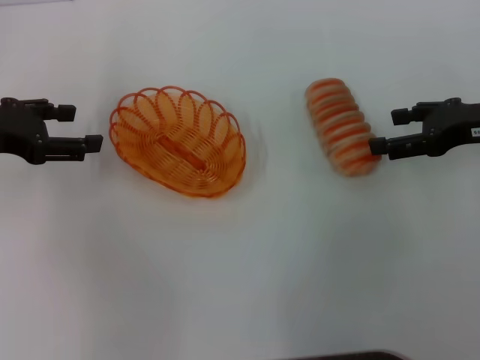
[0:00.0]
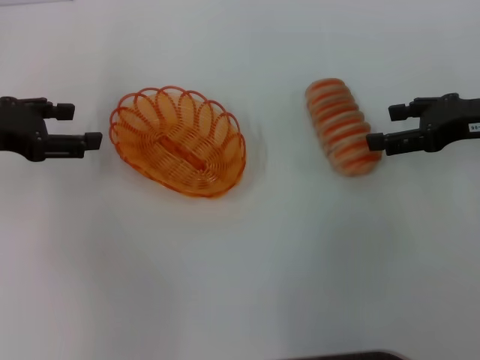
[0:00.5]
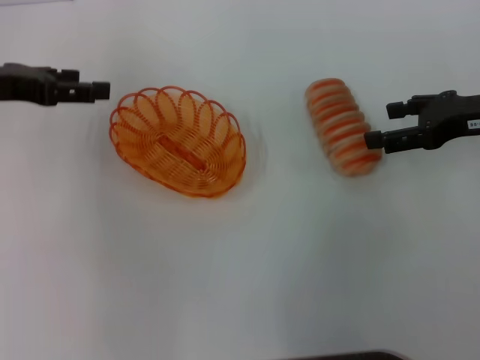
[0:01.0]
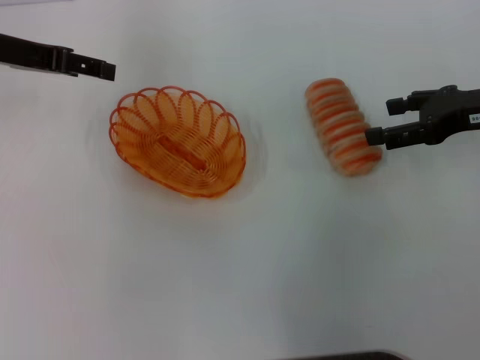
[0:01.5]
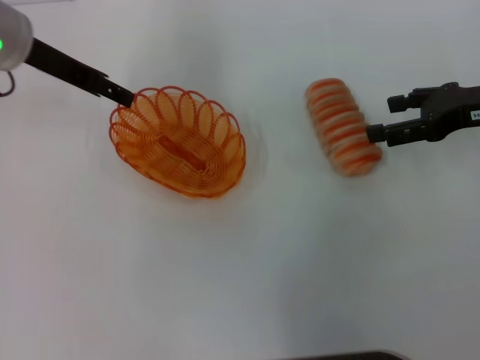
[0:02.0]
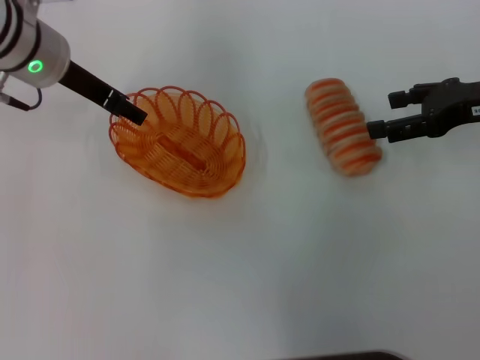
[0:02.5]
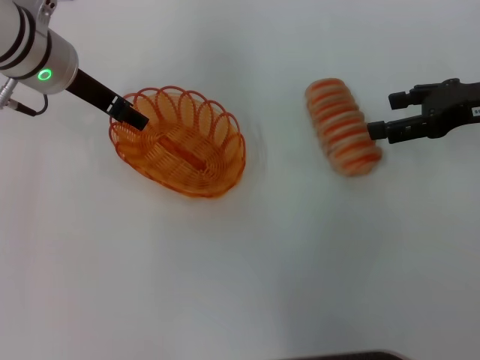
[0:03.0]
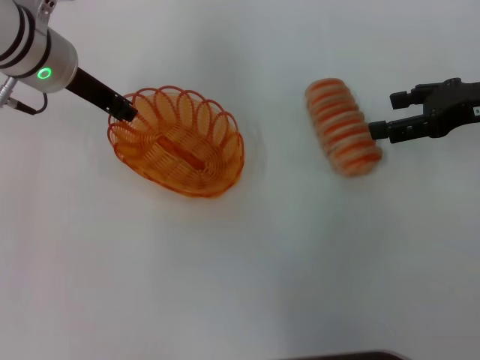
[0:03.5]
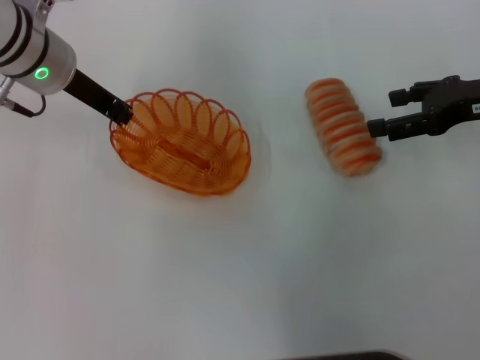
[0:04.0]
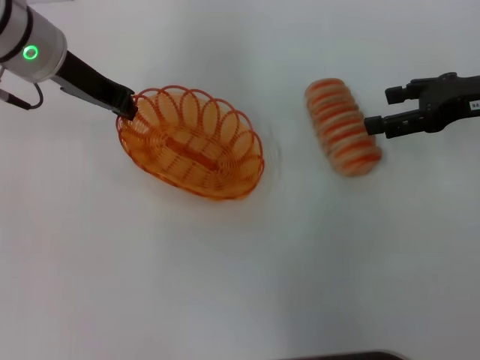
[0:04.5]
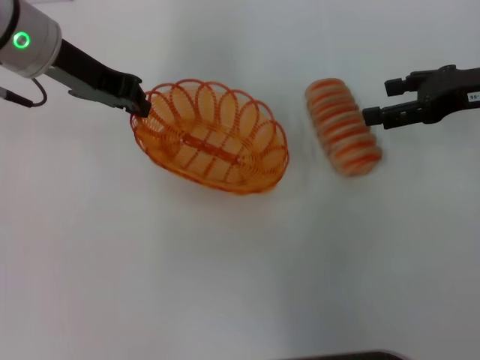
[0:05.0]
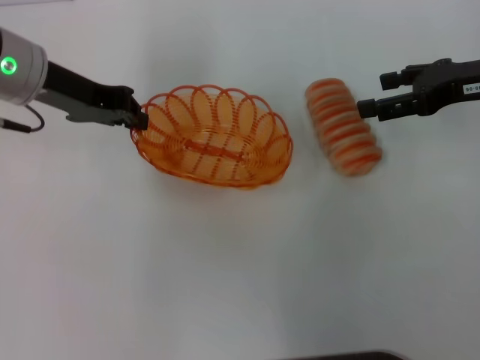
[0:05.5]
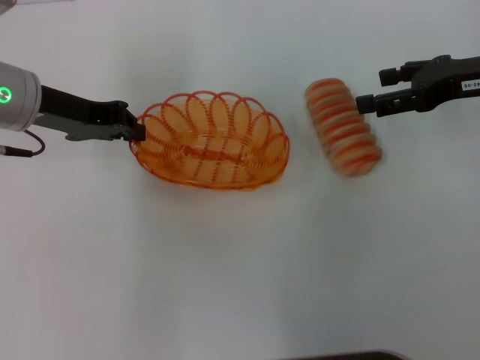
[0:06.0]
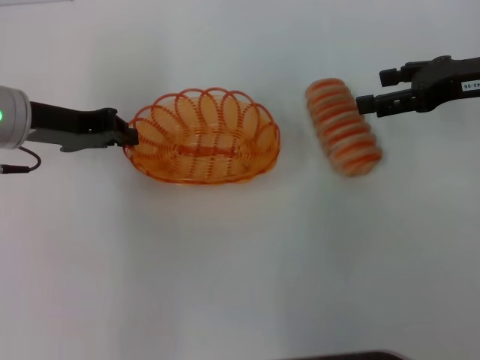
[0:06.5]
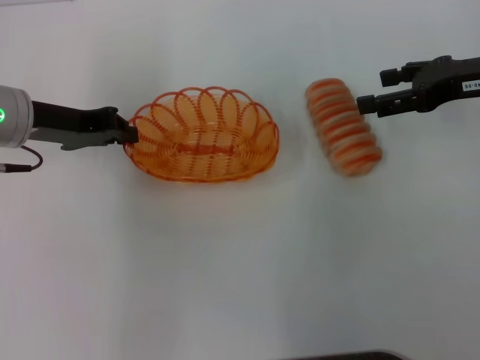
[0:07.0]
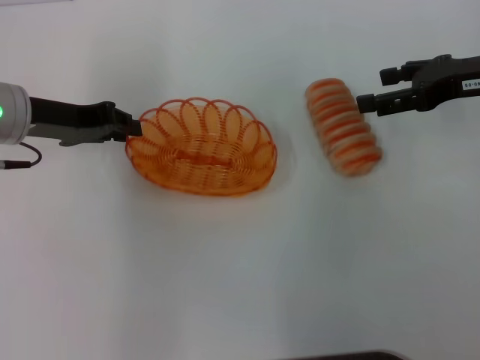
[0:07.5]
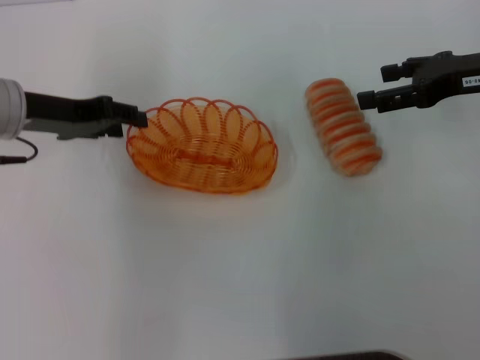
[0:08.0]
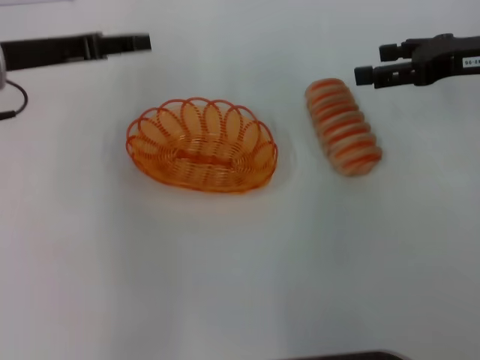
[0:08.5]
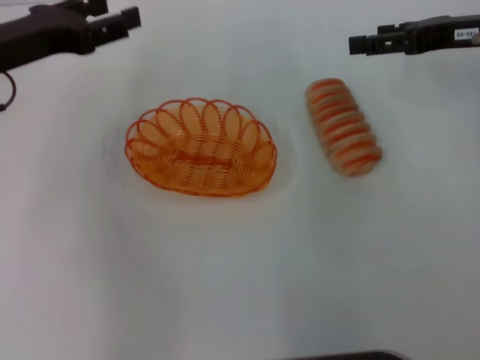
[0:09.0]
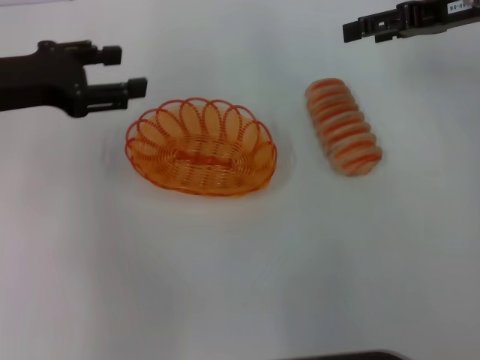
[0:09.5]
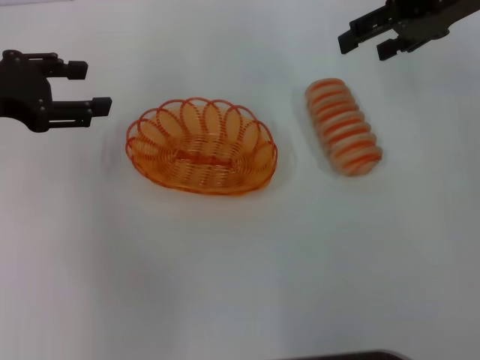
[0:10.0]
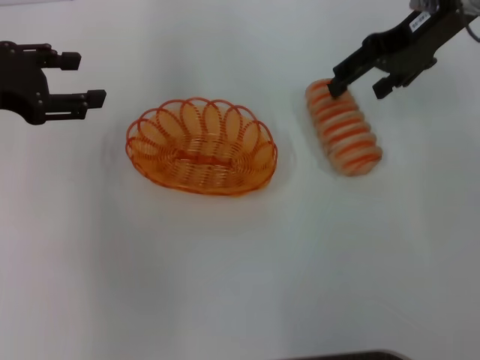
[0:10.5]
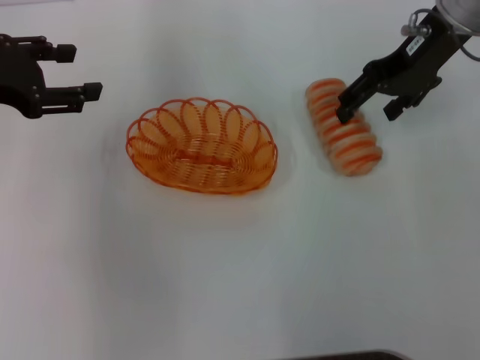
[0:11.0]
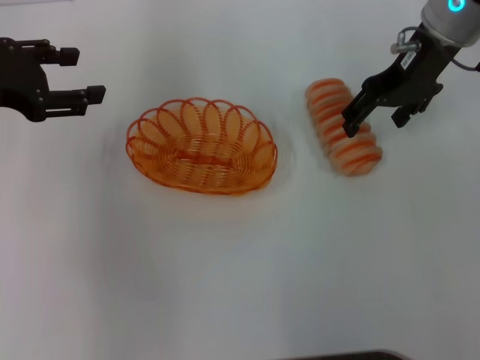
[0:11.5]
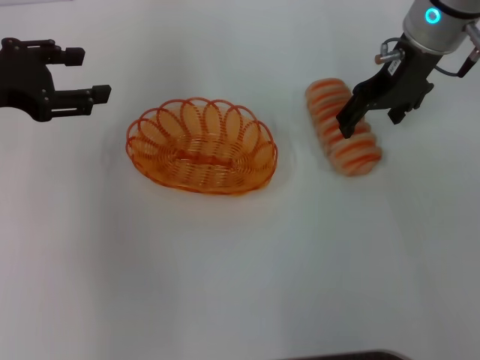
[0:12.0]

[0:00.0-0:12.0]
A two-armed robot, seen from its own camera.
Step, 0:00.0 to 0:04.5: Pick up the basket with the left gripper.
Step, 0:05.0 to 0:08.0: Place the basket in the center of view with the left gripper.
0:00.0 to 0:02.0: The left gripper goes some 15 cm to the right and forward.
0:02.0 to 0:04.0: The left gripper closes.
0:04.0 to 0:06.0: The left gripper shifts by roughly 5 cm.
0:06.0 to 0:08.0: The left gripper opens.
0:08.0 to 0:10.0: The right gripper moves upward and forward, some 10 cm. Meanwhile the left gripper goes roughly 5 cm to the left.
0:10.0 to 0:12.0: The right gripper goes some 10 cm to the left.

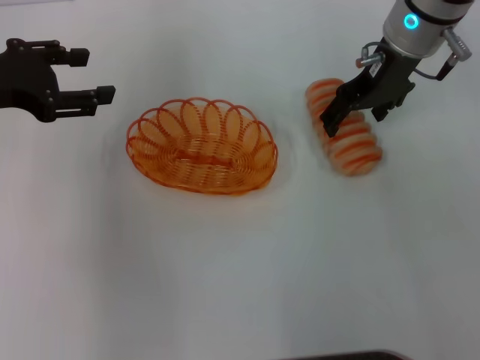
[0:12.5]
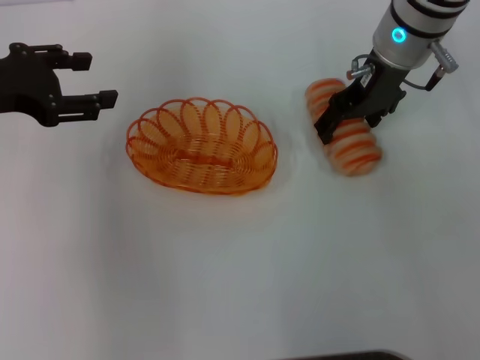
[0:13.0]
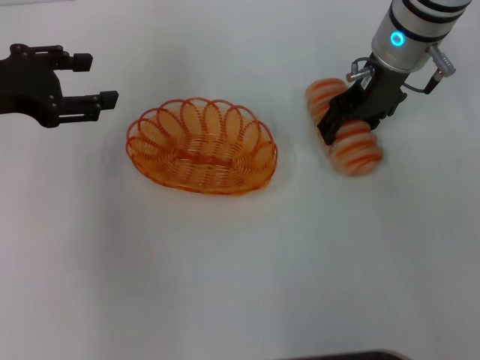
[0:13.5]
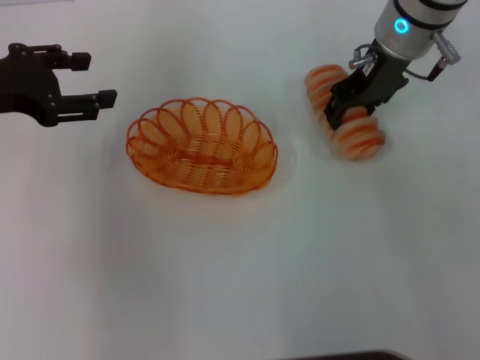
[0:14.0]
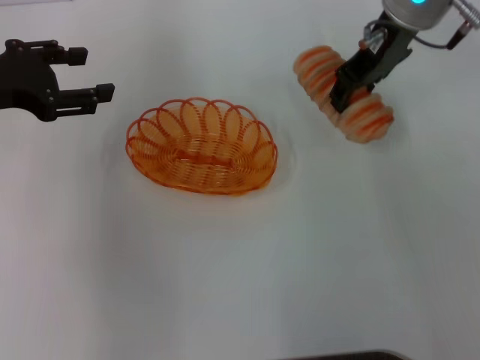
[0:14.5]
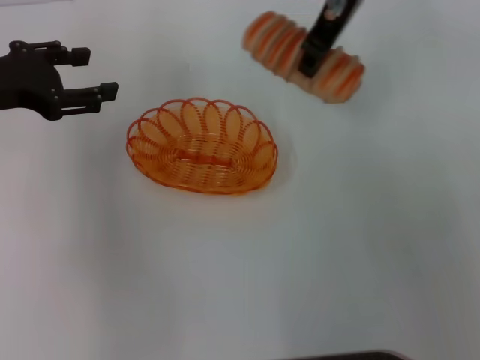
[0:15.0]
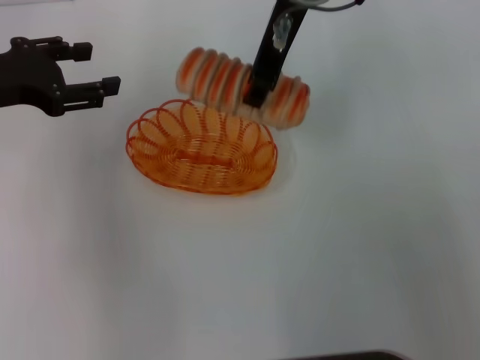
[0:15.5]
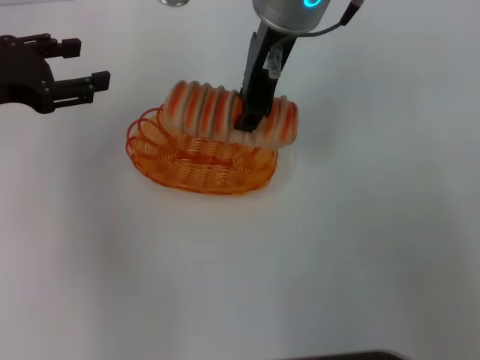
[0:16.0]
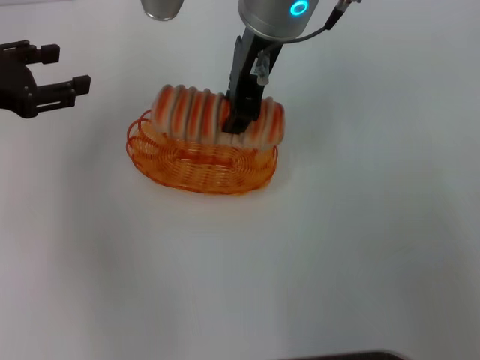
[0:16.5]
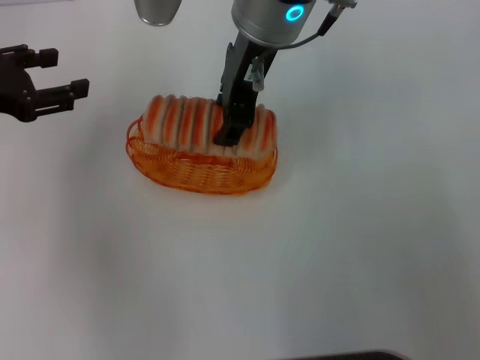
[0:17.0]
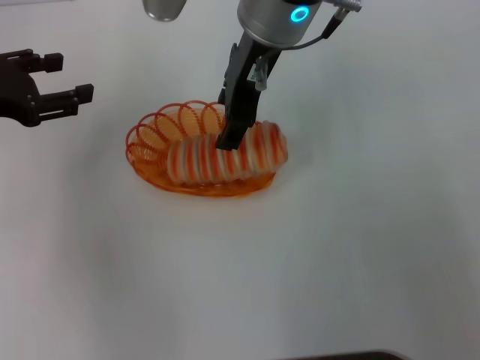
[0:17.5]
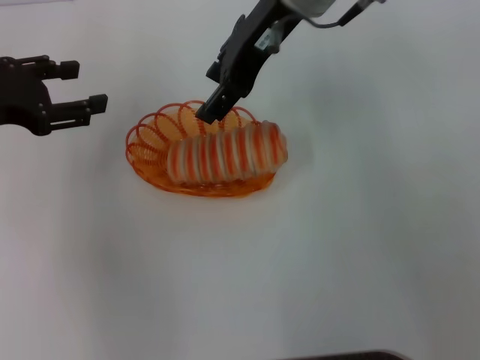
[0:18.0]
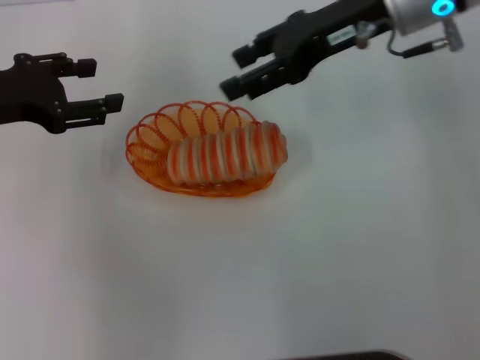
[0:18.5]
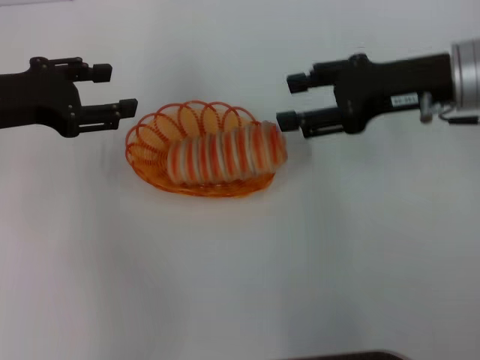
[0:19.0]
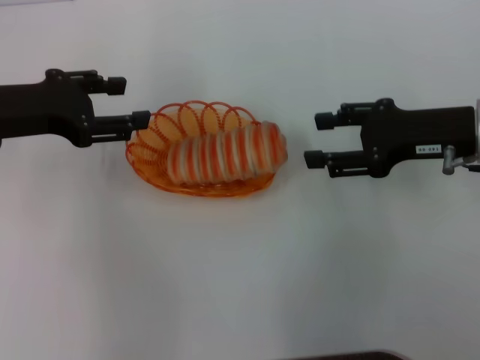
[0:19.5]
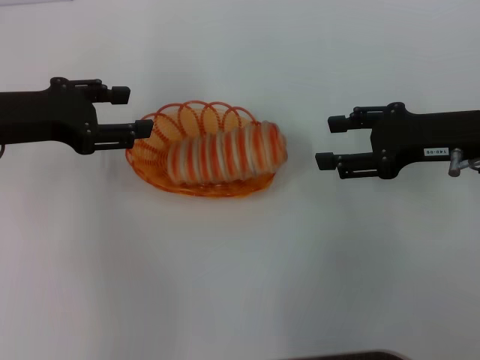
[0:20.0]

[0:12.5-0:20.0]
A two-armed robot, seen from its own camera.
Step, 0:14.5 to 0:18.0: Place the long bread into the basket with the right gripper.
0:12.5 to 0:14.5: The right gripper closes its fingers.
0:14.5 to 0:16.5: The right gripper is displaced to the left by some 10 cm.
0:16.5 to 0:18.0: The right gripper opens.
0:18.0 to 0:20.0: The right gripper shifts approximately 25 cm to the right, downward and backward.

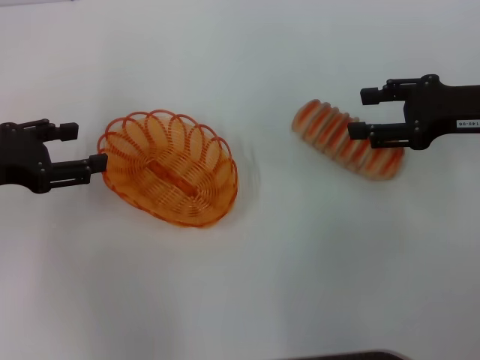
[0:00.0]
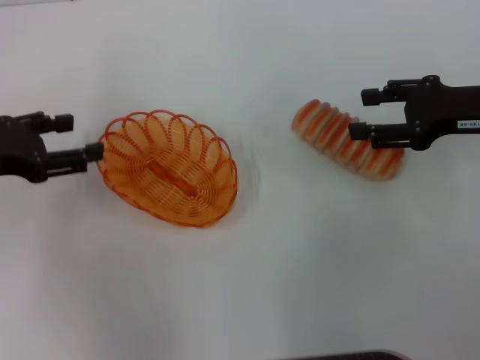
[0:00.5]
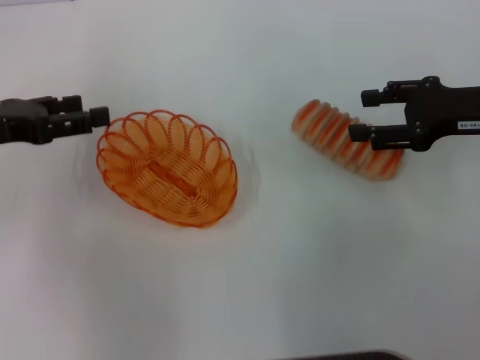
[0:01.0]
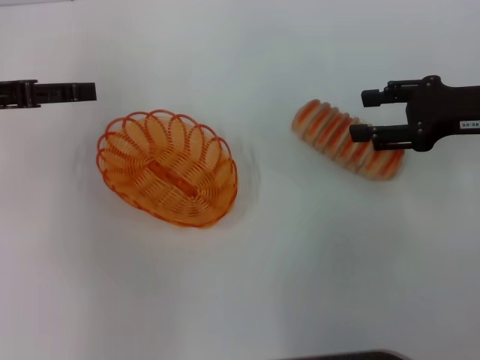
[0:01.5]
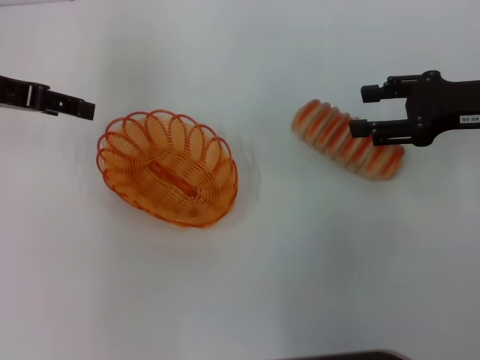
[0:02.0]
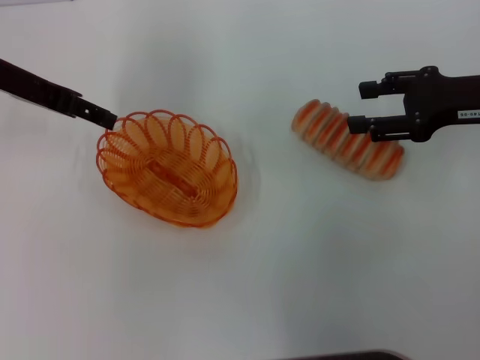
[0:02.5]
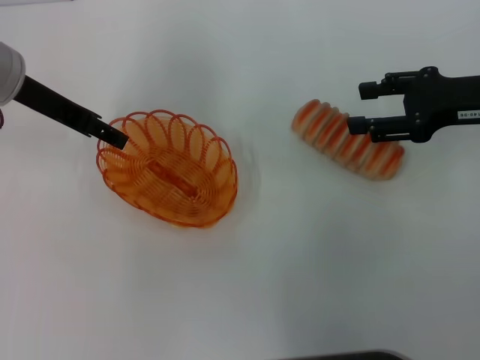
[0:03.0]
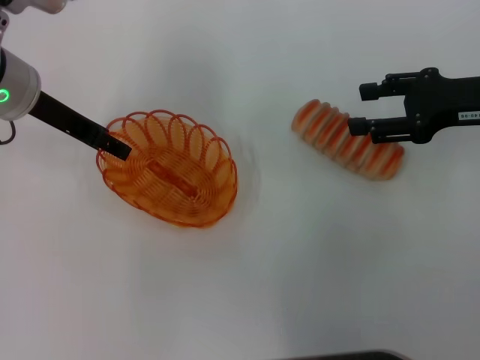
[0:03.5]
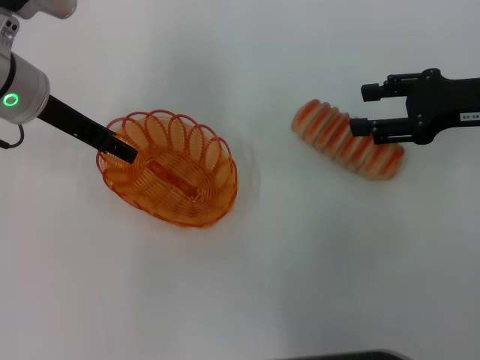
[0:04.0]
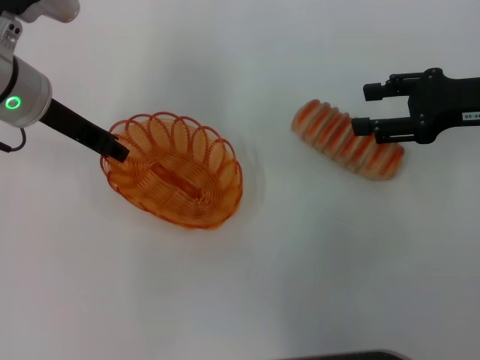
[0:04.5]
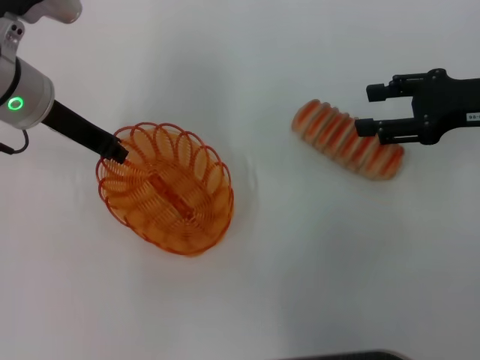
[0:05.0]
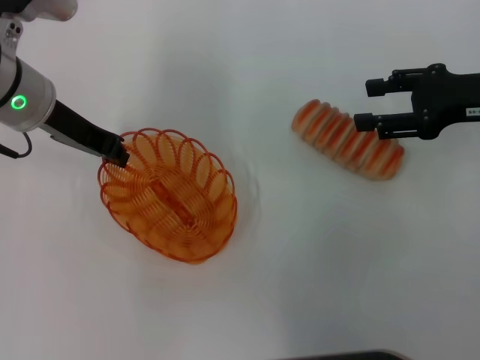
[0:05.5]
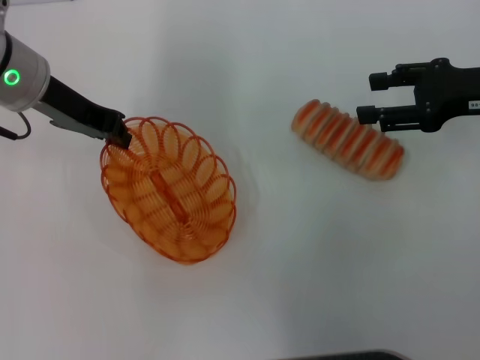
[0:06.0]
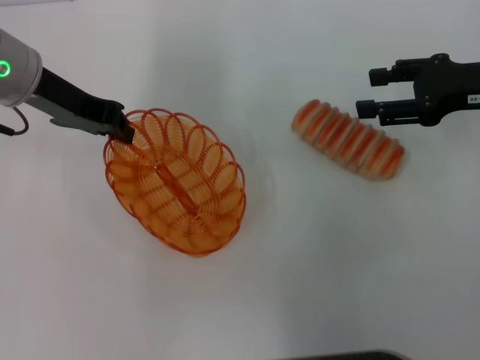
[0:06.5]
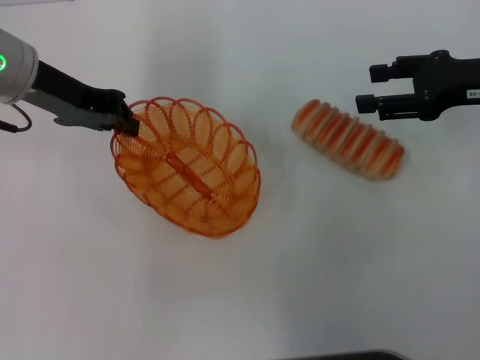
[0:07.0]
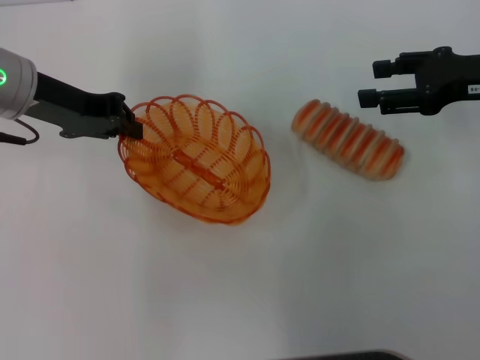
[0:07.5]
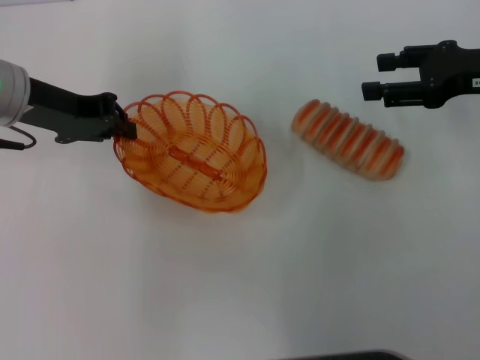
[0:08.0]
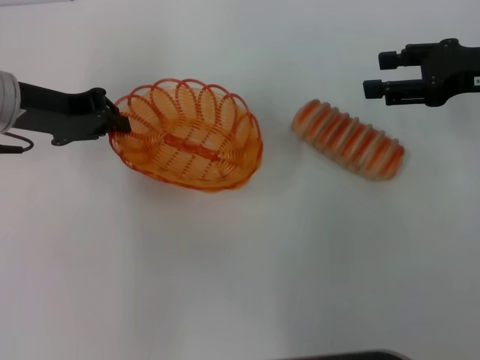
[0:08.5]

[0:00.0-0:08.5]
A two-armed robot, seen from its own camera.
Step, 0:00.0 to 0:06.5: Pick up the basket with the left gripper.
0:00.0 to 0:02.0: The left gripper heads forward and upward, covering some 10 cm.
0:02.0 to 0:04.0: The left gripper travels to the right by approximately 10 cm.
0:04.0 to 0:06.5: The left gripper closes.
0:06.5 to 0:08.5: The left gripper ends up roughly 5 cm from where it was.
